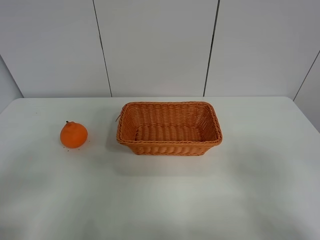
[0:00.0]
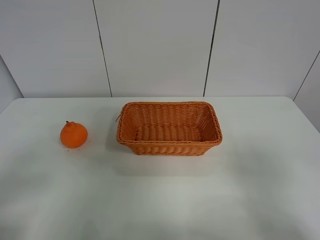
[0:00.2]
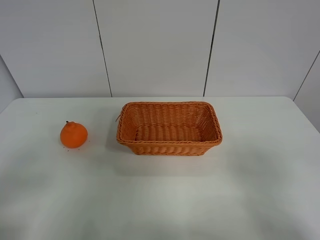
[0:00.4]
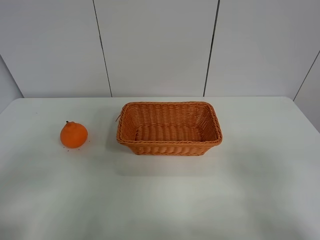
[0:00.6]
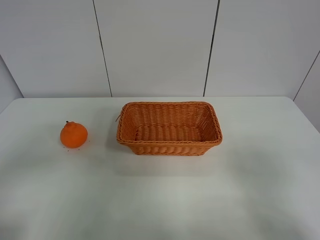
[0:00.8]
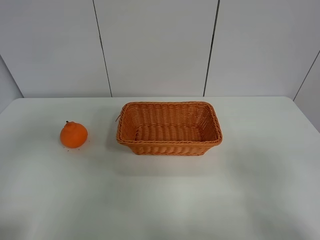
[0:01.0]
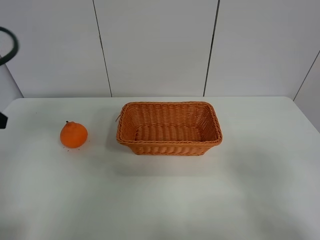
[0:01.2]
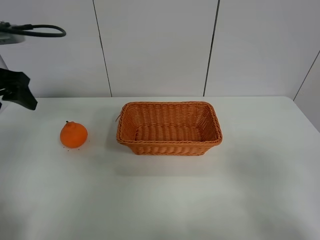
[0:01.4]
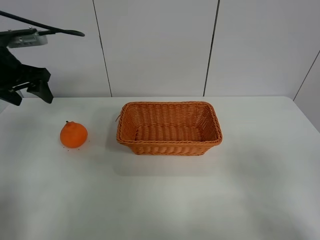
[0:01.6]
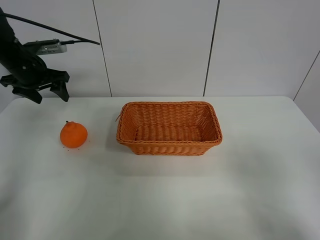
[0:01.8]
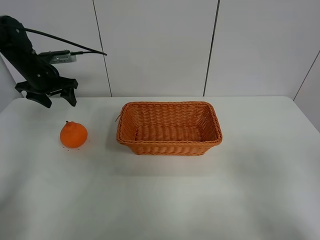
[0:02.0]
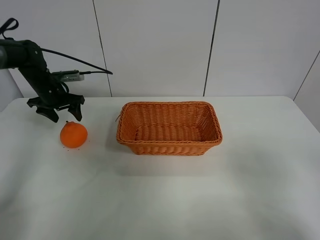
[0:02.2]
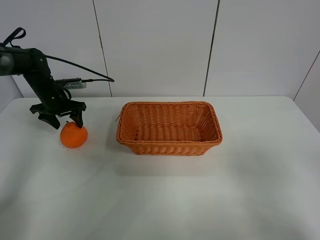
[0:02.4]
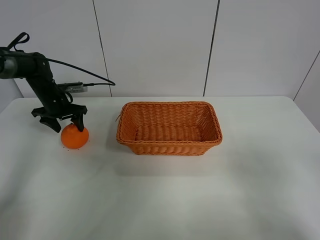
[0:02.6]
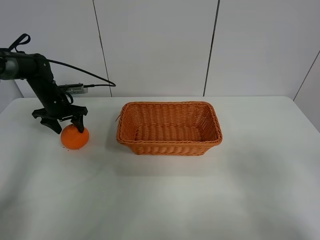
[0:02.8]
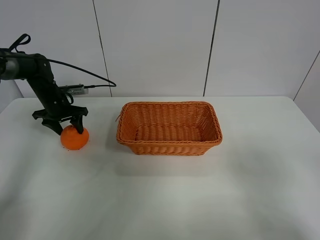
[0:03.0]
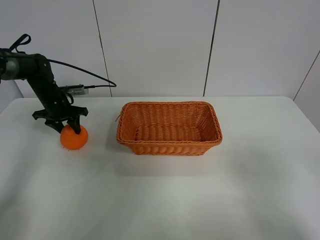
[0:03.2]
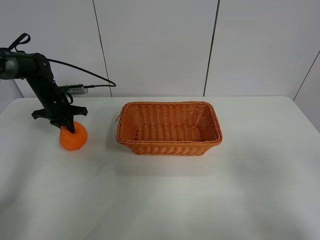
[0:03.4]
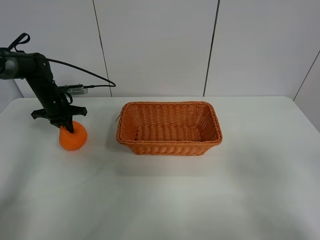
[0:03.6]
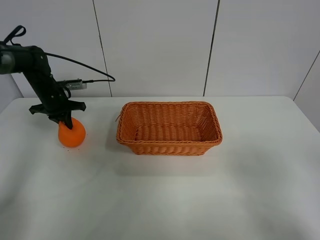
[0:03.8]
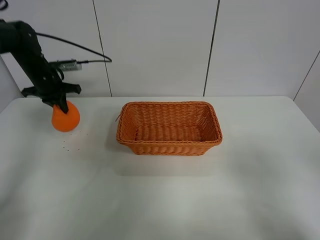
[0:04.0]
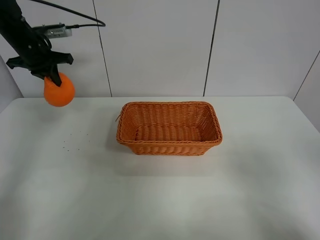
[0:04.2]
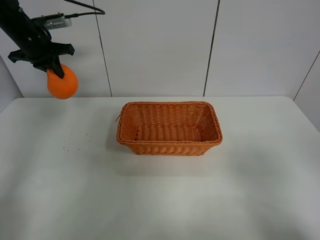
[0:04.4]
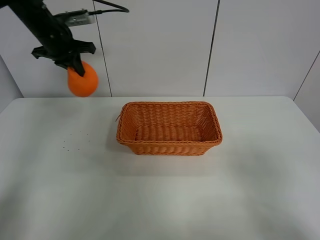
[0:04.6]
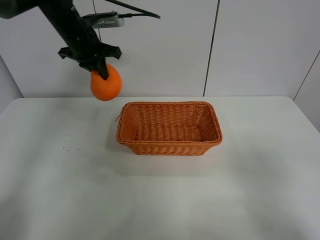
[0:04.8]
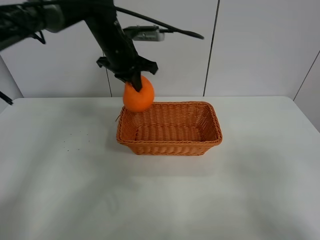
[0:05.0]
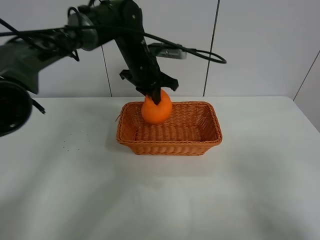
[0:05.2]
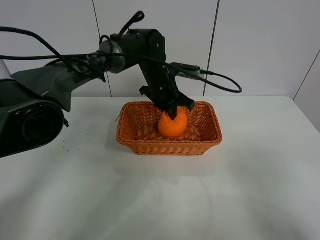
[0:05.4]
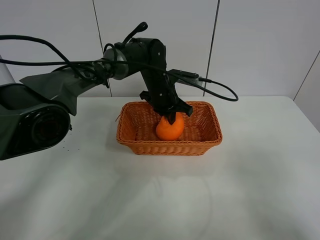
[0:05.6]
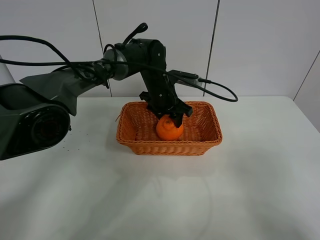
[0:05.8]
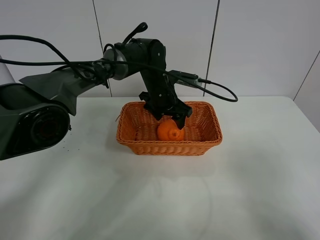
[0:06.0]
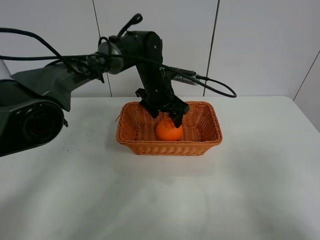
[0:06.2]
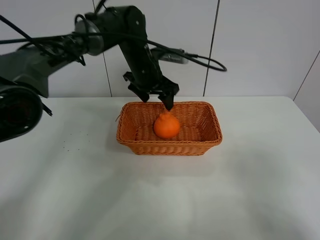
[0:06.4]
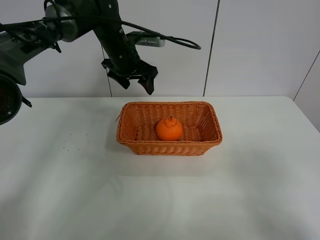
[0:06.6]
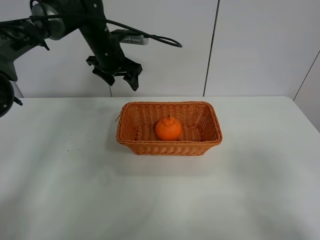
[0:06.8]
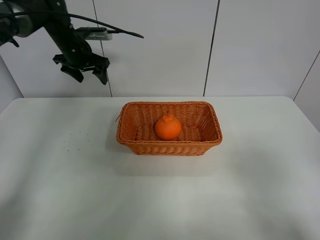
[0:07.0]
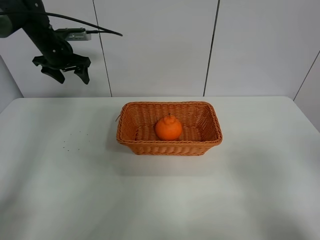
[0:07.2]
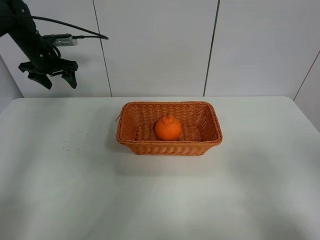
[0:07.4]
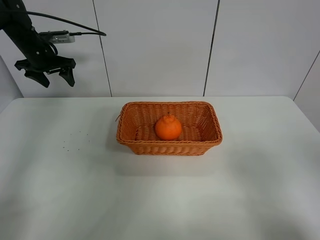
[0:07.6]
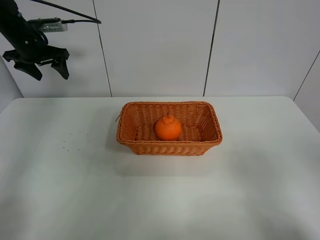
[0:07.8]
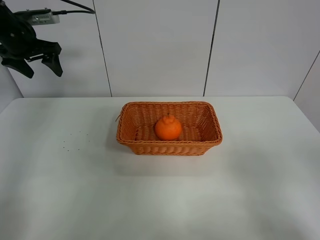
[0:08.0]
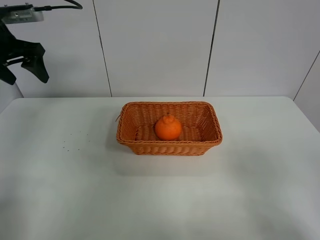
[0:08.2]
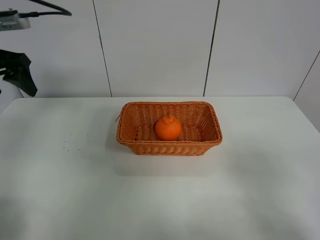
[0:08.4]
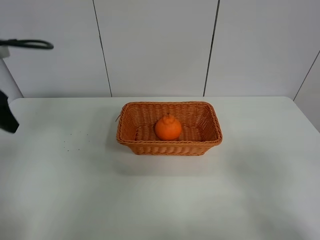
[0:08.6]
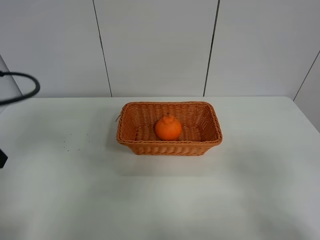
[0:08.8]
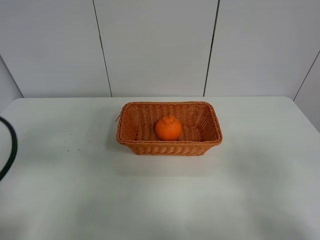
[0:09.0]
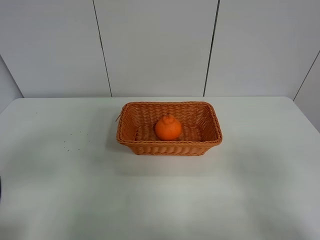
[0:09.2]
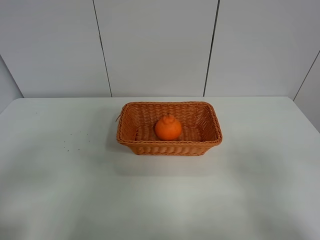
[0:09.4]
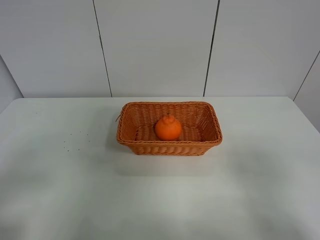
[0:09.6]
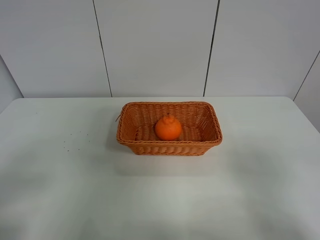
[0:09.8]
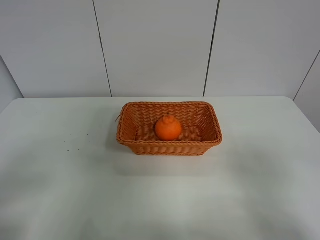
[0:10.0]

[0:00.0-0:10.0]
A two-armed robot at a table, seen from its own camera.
Task of the whole recording: left gripper grabs oranges and puts them in the basket.
Step, 0:00.0 to 0:03.6: Grasp the orange with left gripper.
Step, 0:03.8 to 0:06.8: Place the orange in the basket with left gripper.
0:00.0 to 0:01.4: The left gripper travels forward by some 30 cm.
0:01.4 to 0:02.8: The left gripper travels downward and forward by roughly 25 cm.
0:02.8 to 0:04.2: The left gripper is displaced upward by some 15 cm, and closes.
0:04.2 to 0:05.8: The left gripper shifts some 30 cm to the right, and opens its fingers.
0:05.8 to 0:07.2: The left gripper moves to the left, roughly 30 cm.
0:07.2 to 0:08.6: The left gripper moves backward, approximately 30 cm.
0:08.6 to 0:10.0: The left gripper heads backward, covering approximately 20 cm.
